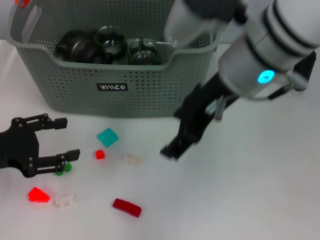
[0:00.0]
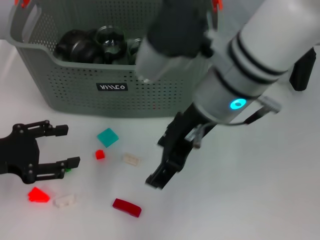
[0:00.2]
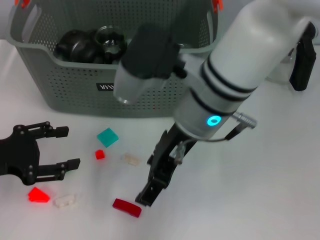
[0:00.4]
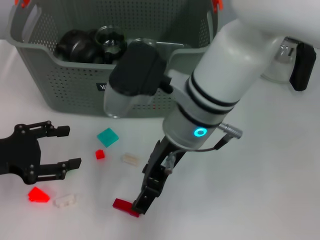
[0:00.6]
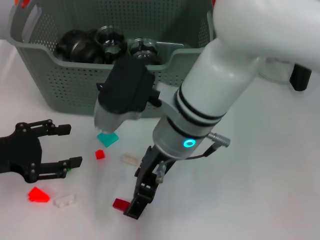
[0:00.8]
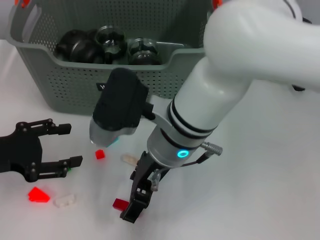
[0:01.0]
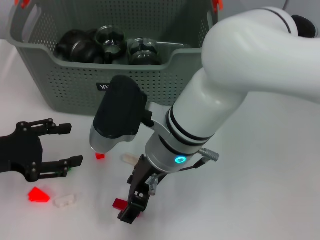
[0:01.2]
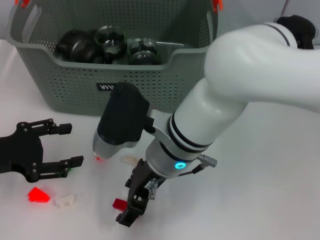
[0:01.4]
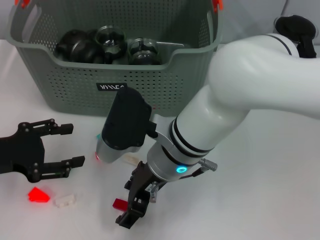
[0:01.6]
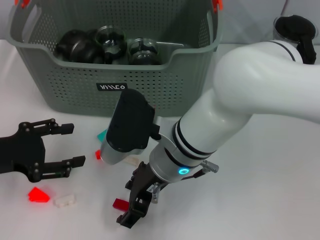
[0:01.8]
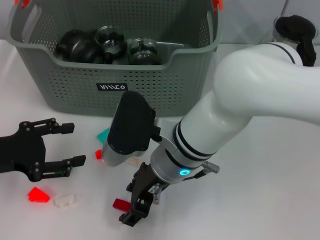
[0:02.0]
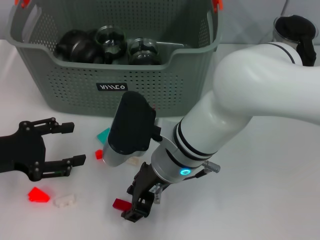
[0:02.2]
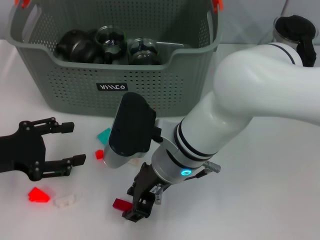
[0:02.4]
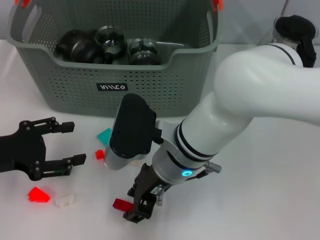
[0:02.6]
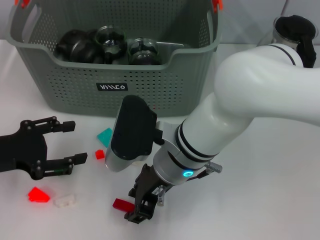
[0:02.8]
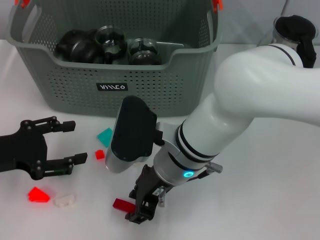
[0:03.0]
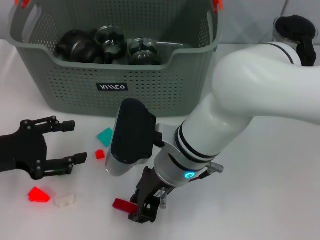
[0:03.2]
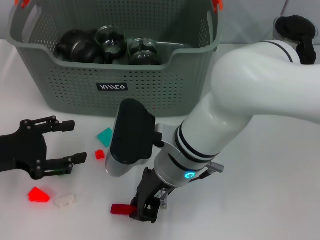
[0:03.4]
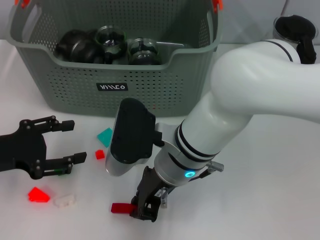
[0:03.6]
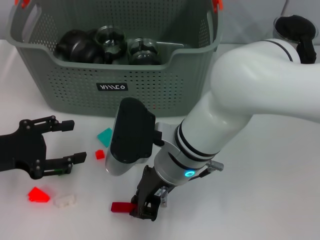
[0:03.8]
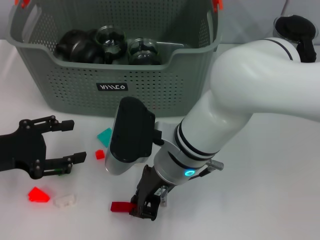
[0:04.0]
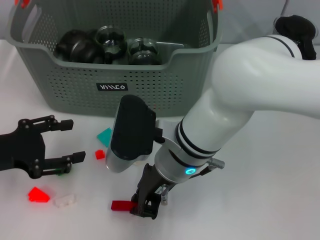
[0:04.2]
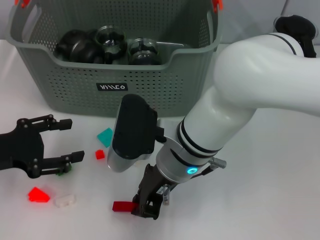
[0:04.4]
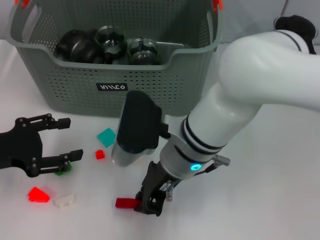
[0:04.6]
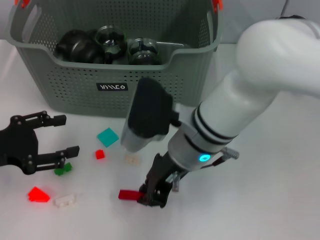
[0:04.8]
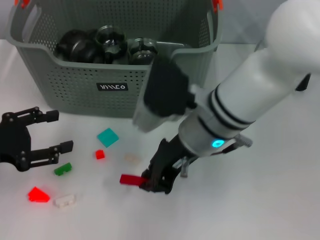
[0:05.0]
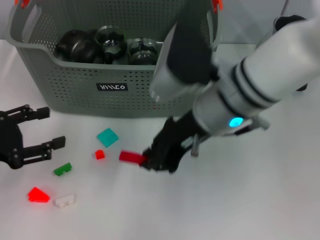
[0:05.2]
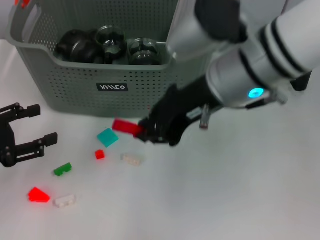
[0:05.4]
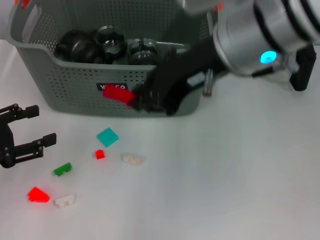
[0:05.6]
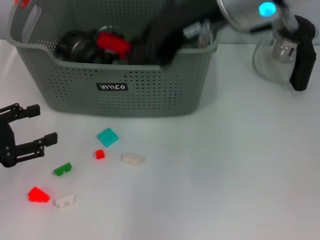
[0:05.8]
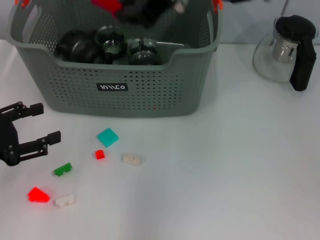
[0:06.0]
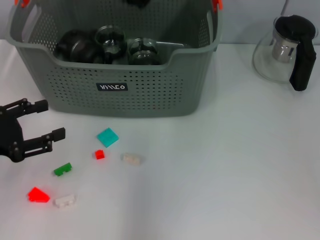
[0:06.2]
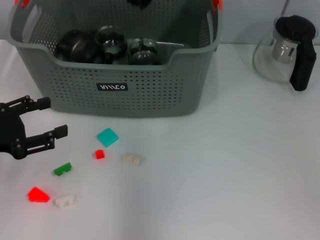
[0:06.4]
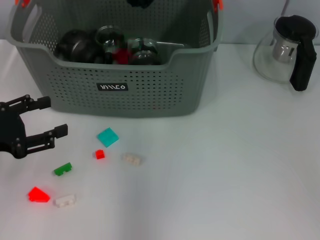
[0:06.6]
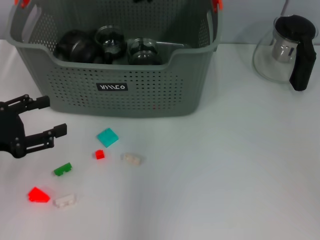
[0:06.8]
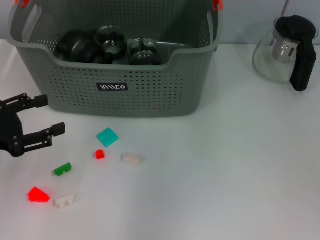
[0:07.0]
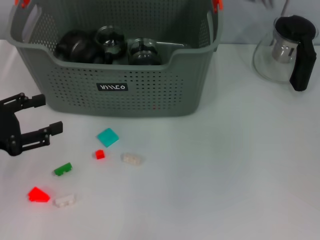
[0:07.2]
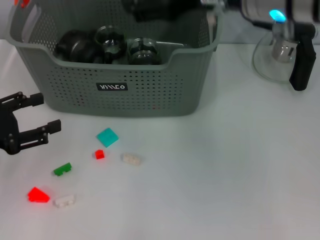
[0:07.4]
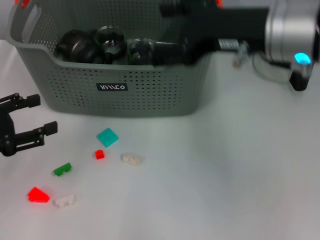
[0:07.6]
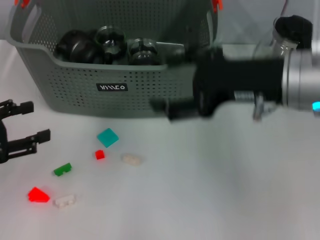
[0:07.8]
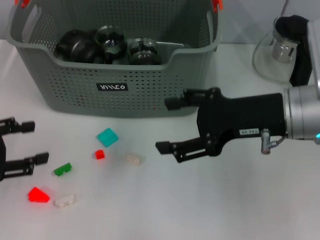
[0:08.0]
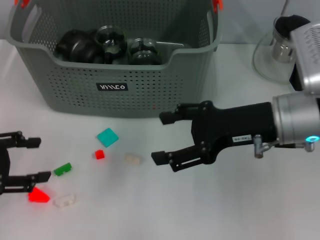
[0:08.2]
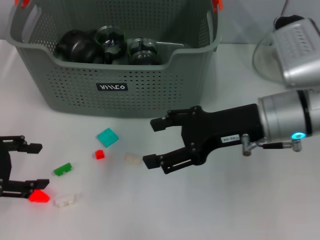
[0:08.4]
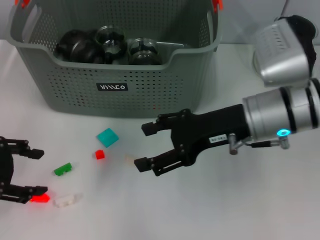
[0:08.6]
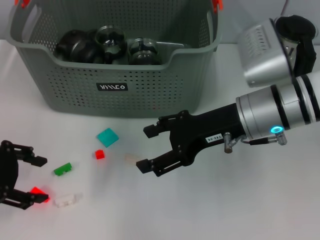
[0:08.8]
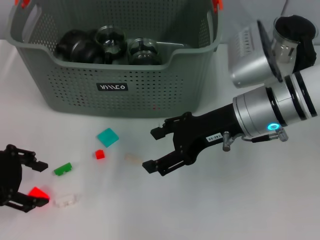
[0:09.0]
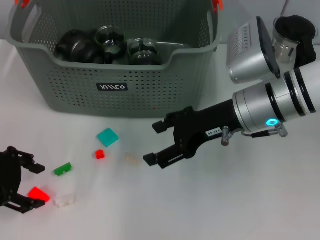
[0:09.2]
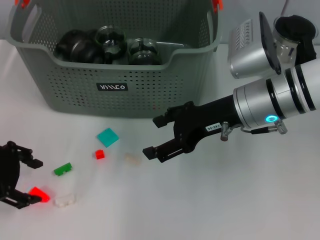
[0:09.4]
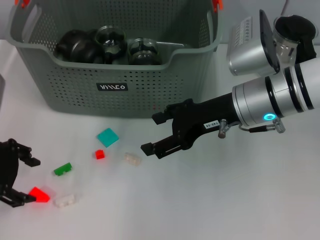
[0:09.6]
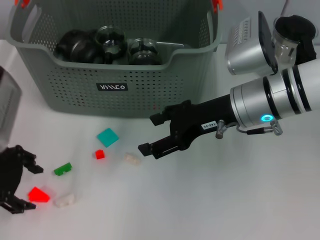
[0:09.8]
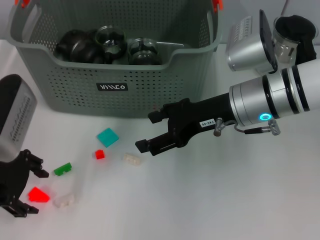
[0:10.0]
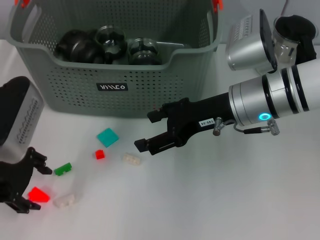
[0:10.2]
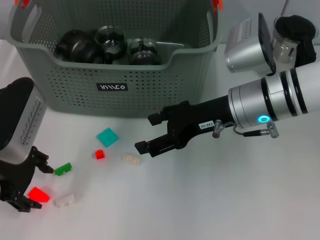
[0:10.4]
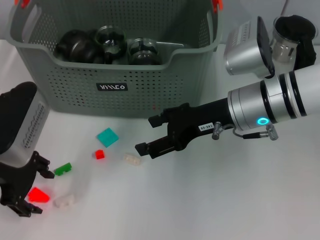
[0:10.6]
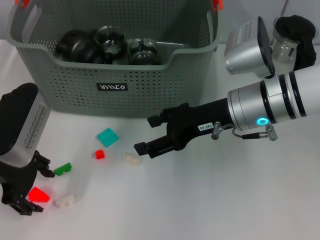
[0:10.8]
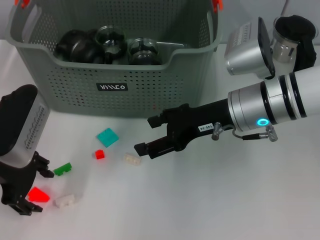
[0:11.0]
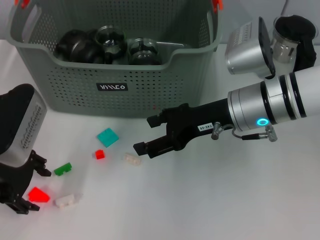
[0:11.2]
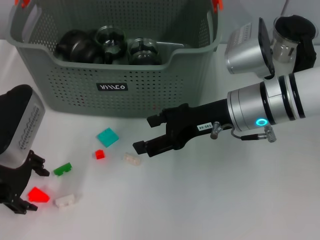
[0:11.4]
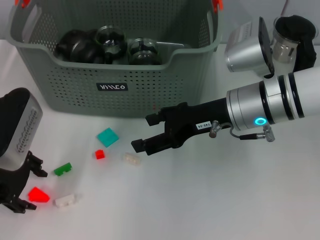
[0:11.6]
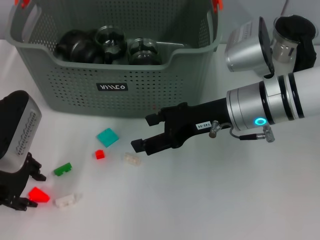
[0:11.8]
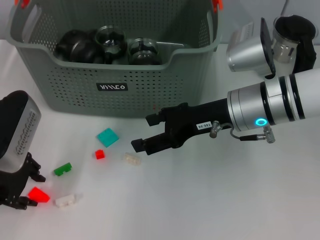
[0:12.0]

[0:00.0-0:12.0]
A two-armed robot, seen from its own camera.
Task of the whole recording: pick up the teacup on the table and place it into the storage bin, pick up the block on the table and place it into the storage bin.
Step, 0:00.0 to 0:03.6: Grasp the red block with right gripper.
Step, 0:03.8 to 0:07.2: Place the red block in the storage box with right gripper.
0:00.0 to 0:01.6: The right gripper goes some 15 cm downward and to the left.
0:01.6 to 0:03.0: The right gripper closes up.
0:03.0 to 0:04.4: The right gripper closes its fingers.
0:04.4 to 0:06.0: The right gripper goes approximately 20 cm upward.
0:06.0 to 0:07.6: The right gripper heads to the right and downward, covering some 10 cm, and opens its fingers.
0:07.6 to 0:09.0: The left gripper changes place by roughly 5 cm. Meanwhile the right gripper moves downward, roughly 10 cm.
0:09.0 to 0:10.4: The left gripper shifts some 5 cm to the right.
0:10.4 to 0:12.0: The grippers make only small movements.

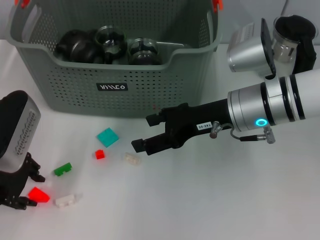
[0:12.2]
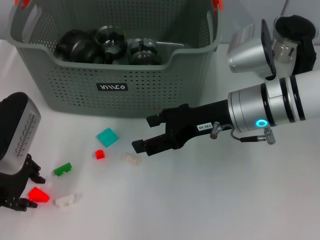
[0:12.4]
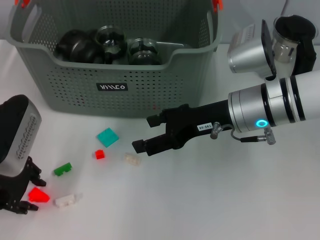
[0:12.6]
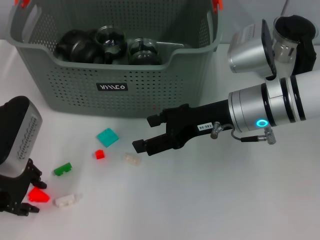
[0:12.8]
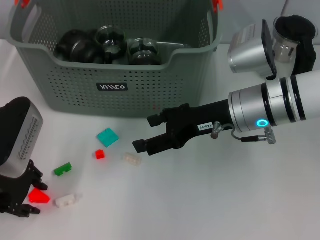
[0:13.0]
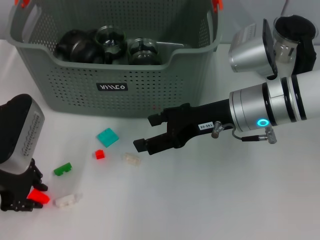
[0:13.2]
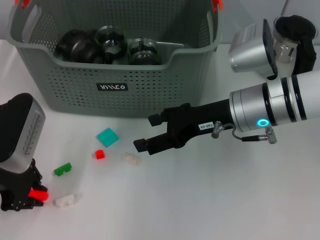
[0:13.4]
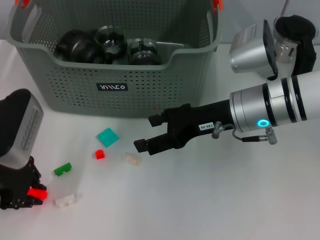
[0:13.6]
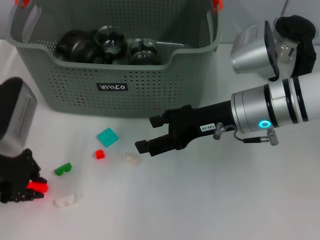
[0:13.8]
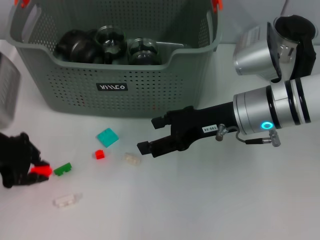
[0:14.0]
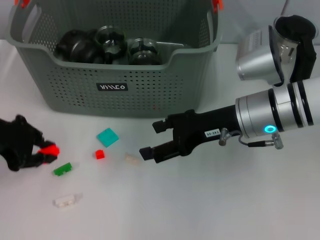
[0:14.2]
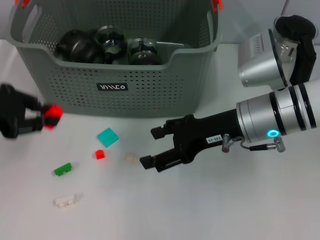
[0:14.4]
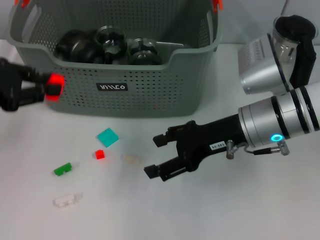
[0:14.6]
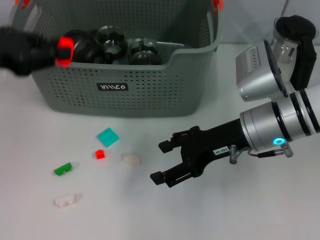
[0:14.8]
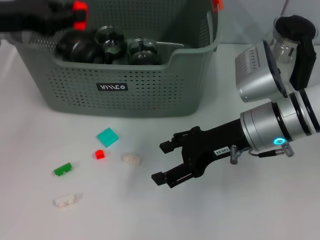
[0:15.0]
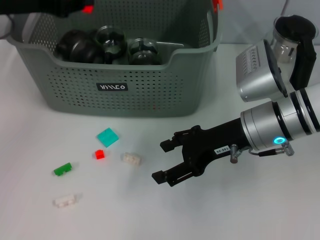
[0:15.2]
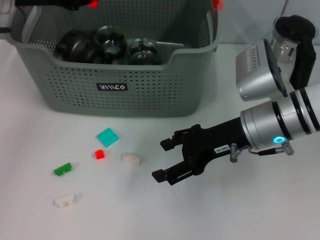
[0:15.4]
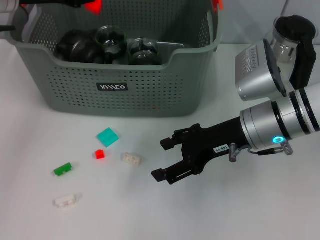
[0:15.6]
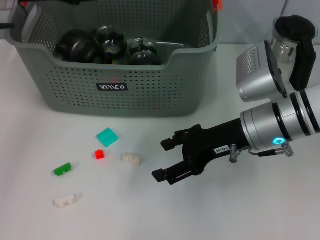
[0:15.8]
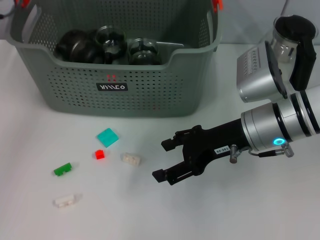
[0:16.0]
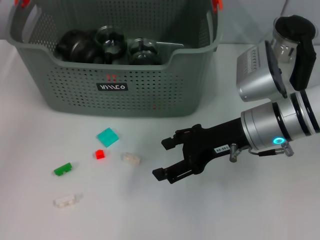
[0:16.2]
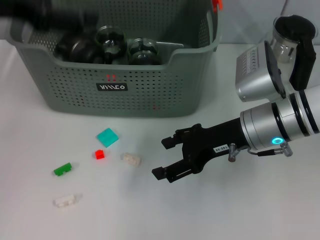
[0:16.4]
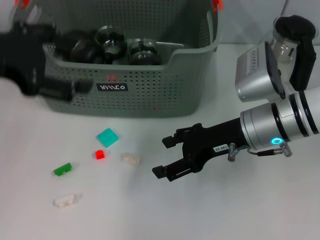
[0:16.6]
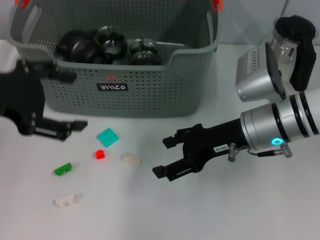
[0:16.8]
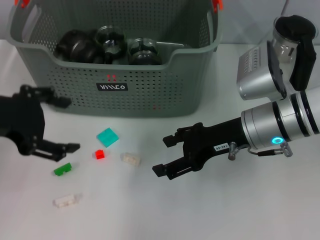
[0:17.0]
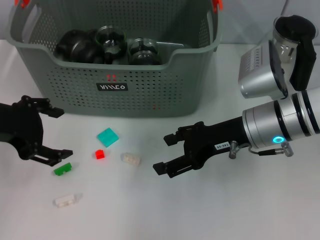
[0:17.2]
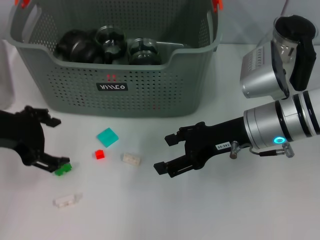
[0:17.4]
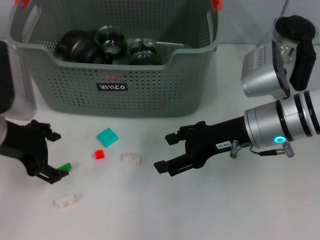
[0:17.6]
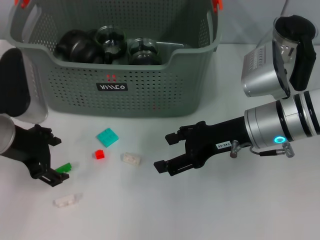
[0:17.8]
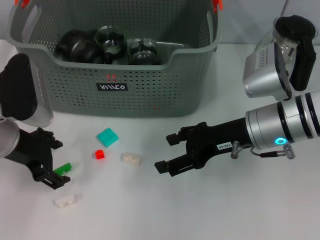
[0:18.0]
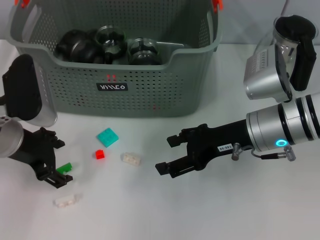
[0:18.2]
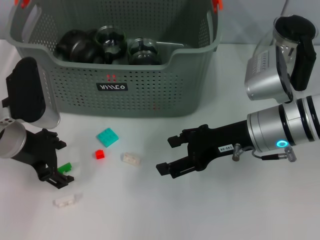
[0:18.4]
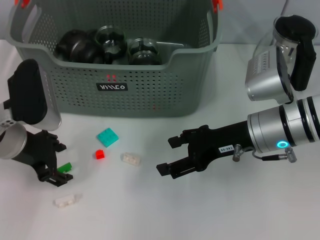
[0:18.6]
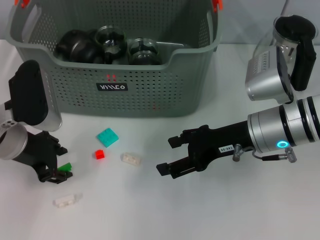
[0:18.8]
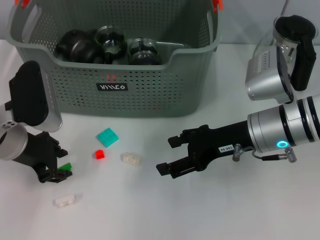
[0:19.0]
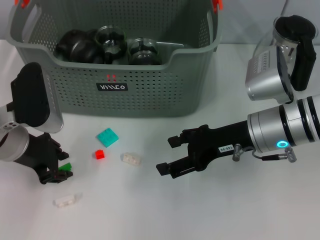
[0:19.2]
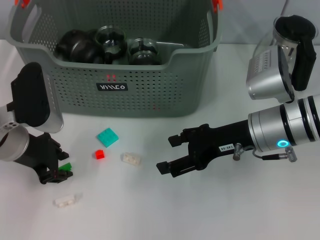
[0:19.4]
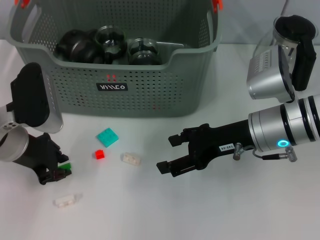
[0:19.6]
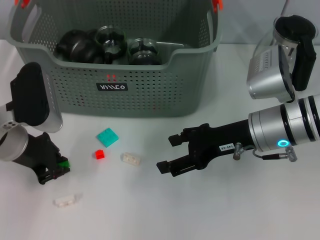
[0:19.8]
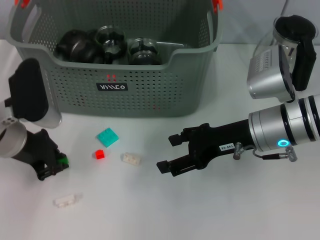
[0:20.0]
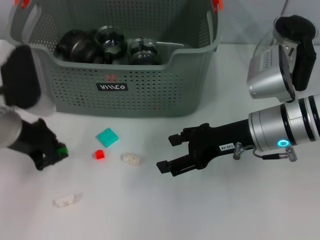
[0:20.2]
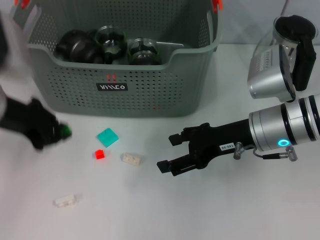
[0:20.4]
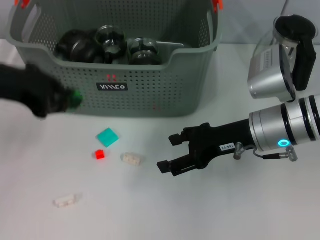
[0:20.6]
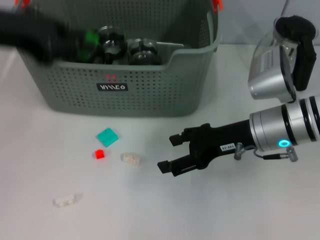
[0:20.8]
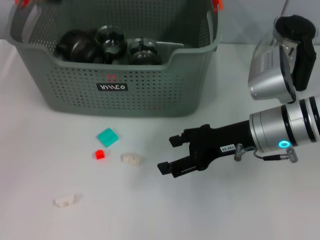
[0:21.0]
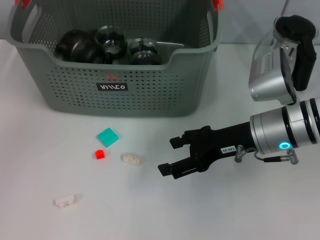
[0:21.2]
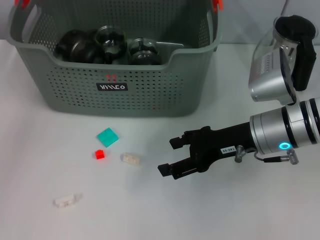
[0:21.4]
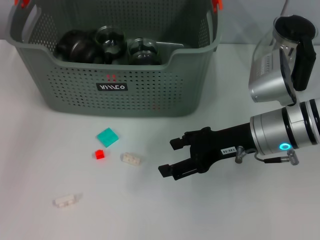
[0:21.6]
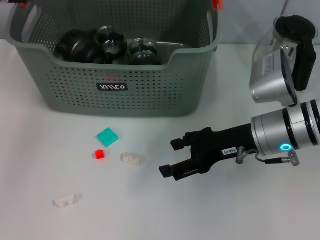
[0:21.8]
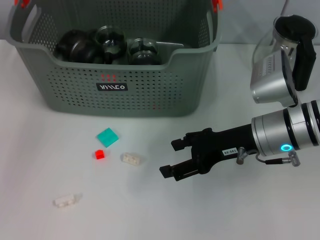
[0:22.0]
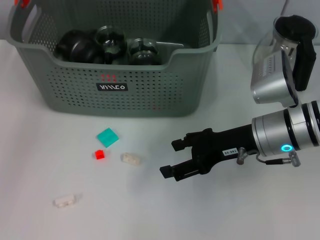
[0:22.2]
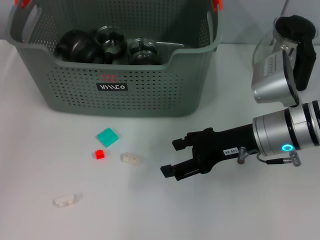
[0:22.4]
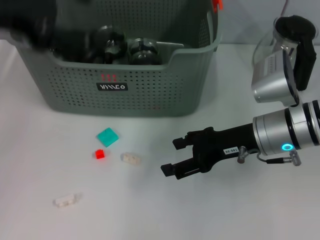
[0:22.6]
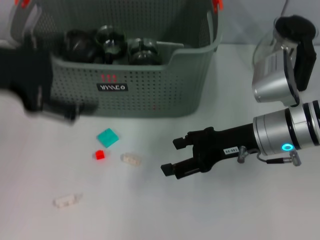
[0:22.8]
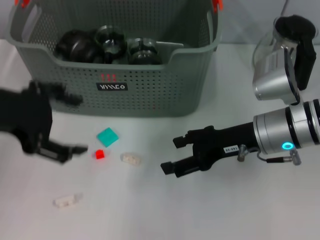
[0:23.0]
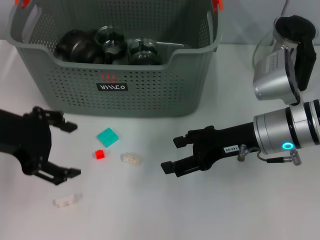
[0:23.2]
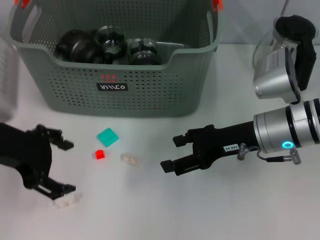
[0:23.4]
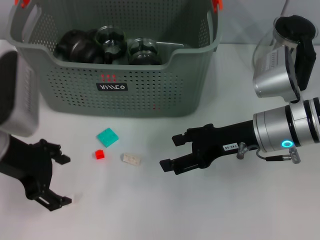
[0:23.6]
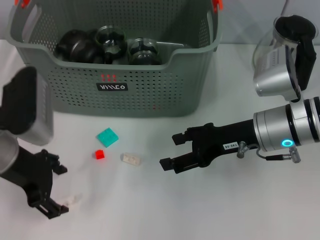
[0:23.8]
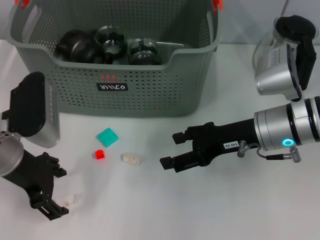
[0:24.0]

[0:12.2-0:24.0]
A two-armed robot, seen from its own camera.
Task of the whole recording: pick up the teacup on the table and place it into the storage bin, pick up the block on the table and place it into the storage bin.
Step, 0:13.6 to 0:16.0: Place the orange block in the storage box with left gripper.
Step, 0:16.2 to 0:19.8: Grasp the green block with left gripper.
Step, 0:20.0 to 0:21.8: Place the green block in the storage box with left gripper.
0:12.2 to 0:13.6: Both grippers stay about where they are.
0:13.6 to 0:15.2: The left gripper is displaced upward and forward by about 15 cm.
0:15.2 to 0:16.6: The left gripper shifts approximately 10 cm backward, and opens up.
0:16.6 to 0:18.2: The left gripper is displaced downward by roughly 15 cm.
0:18.2 to 0:19.6: The left gripper closes its fingers.
0:19.6 to 0:21.0: The left gripper goes roughly 20 cm upward.
0:21.0 to 0:22.6: The left gripper opens.
0:22.6 to 0:24.0: The left gripper moves downward, approximately 15 cm.
